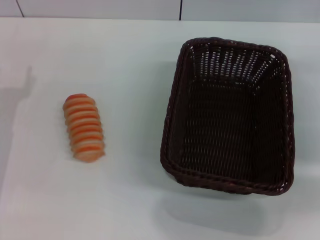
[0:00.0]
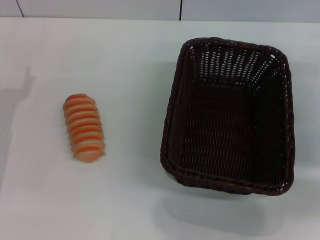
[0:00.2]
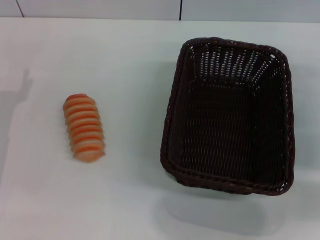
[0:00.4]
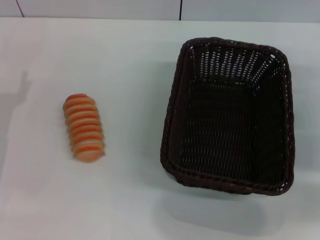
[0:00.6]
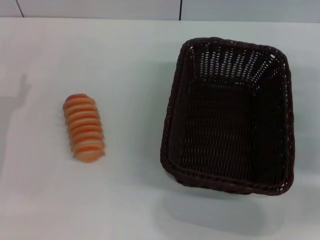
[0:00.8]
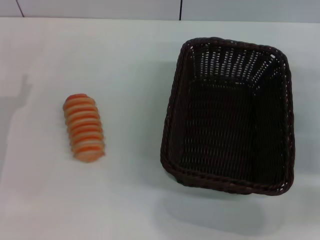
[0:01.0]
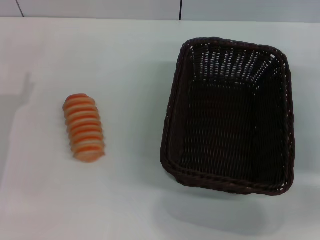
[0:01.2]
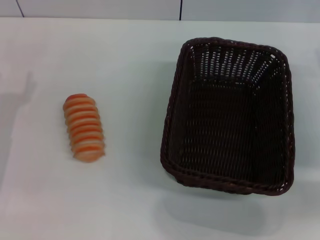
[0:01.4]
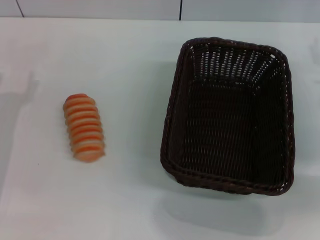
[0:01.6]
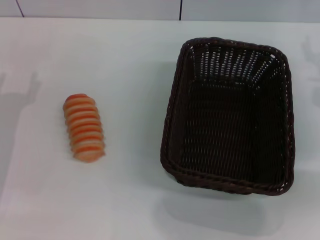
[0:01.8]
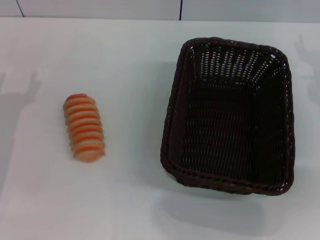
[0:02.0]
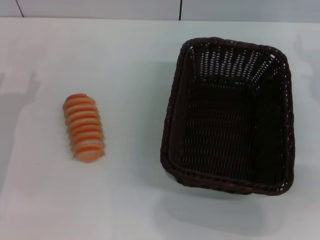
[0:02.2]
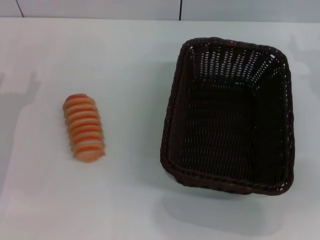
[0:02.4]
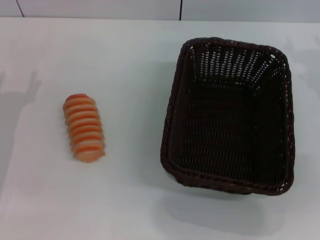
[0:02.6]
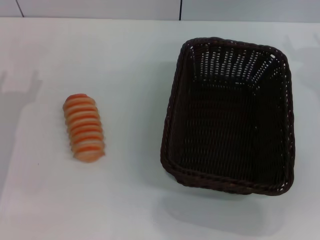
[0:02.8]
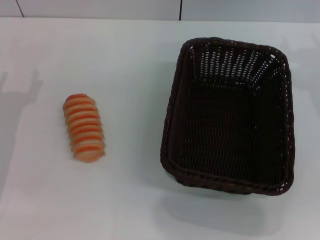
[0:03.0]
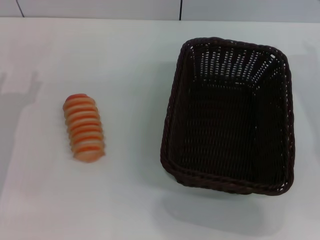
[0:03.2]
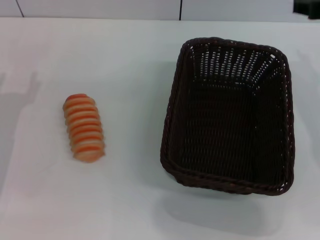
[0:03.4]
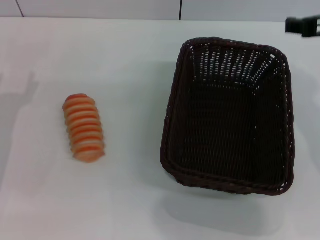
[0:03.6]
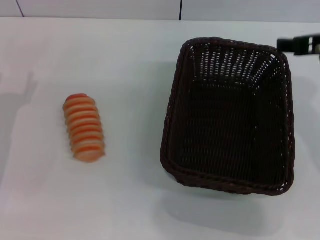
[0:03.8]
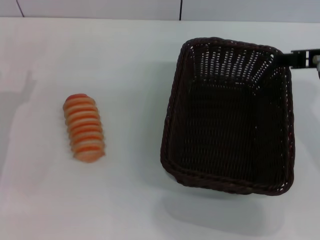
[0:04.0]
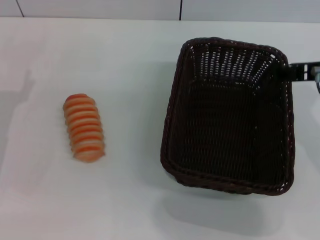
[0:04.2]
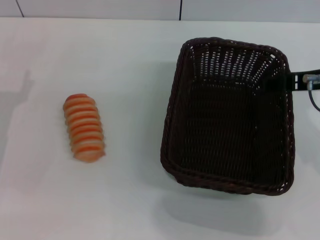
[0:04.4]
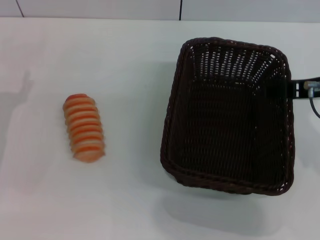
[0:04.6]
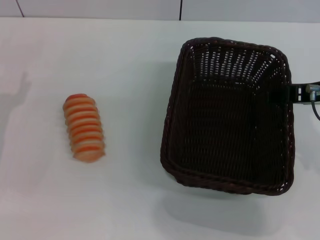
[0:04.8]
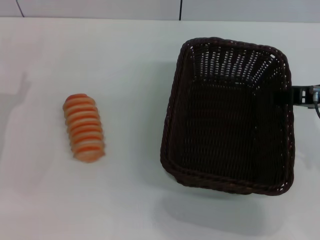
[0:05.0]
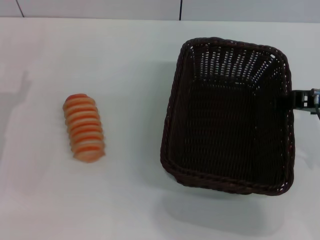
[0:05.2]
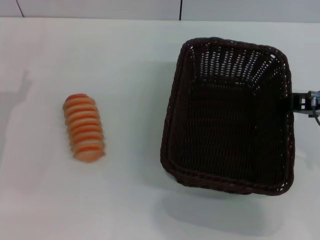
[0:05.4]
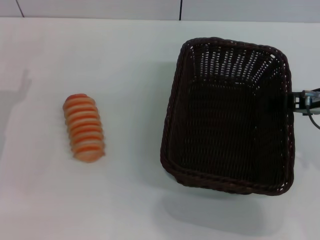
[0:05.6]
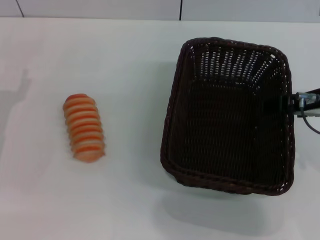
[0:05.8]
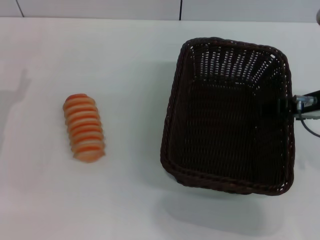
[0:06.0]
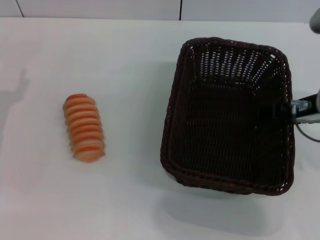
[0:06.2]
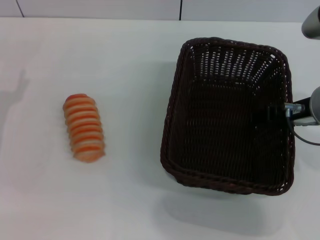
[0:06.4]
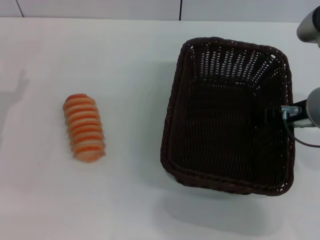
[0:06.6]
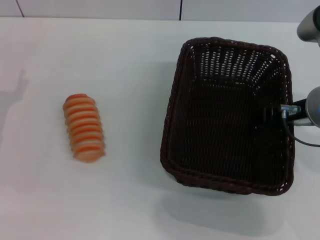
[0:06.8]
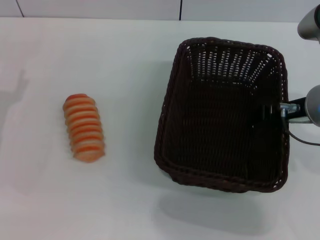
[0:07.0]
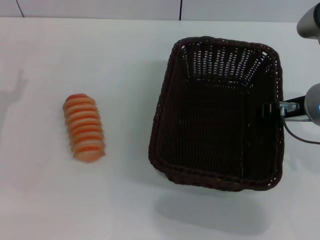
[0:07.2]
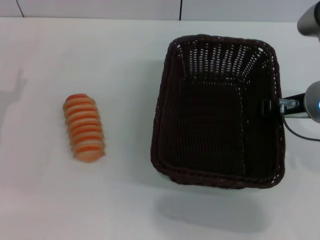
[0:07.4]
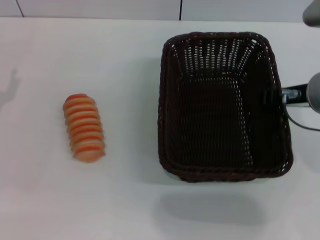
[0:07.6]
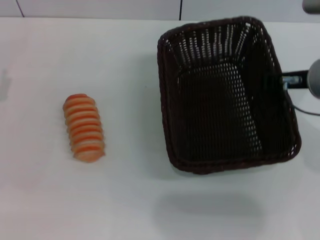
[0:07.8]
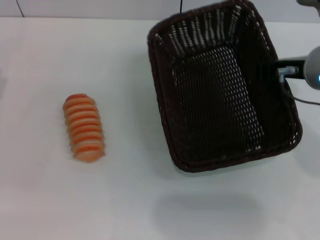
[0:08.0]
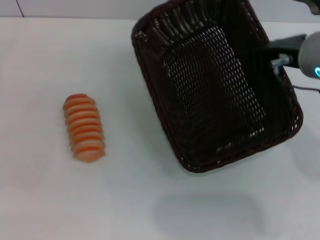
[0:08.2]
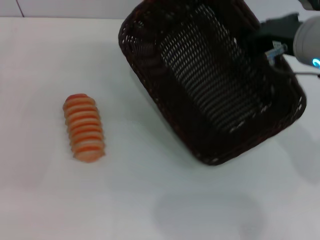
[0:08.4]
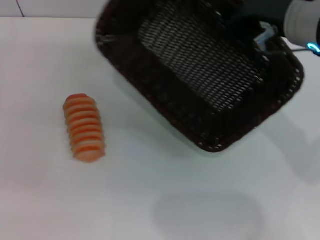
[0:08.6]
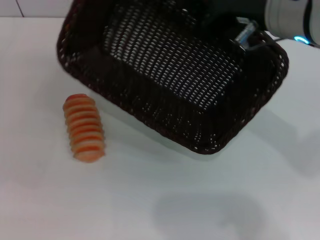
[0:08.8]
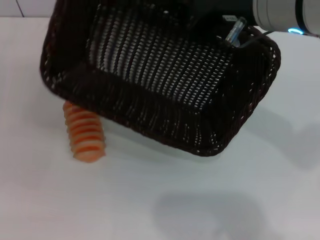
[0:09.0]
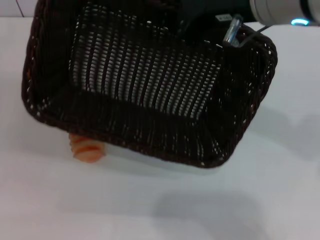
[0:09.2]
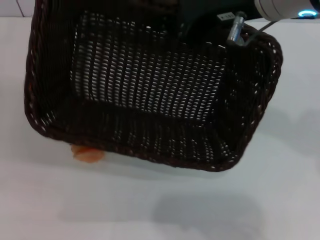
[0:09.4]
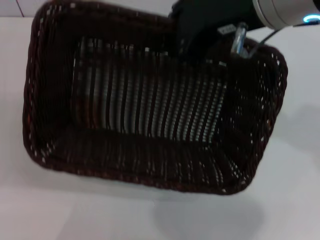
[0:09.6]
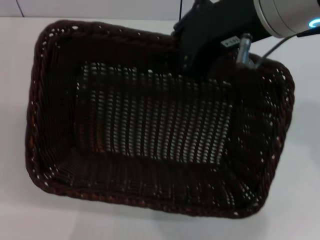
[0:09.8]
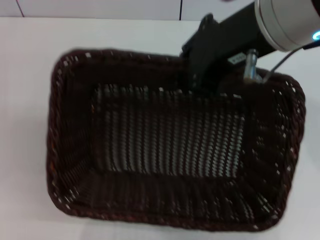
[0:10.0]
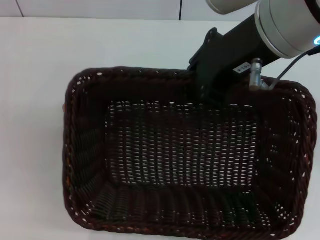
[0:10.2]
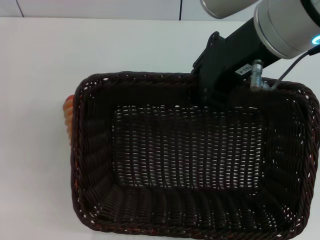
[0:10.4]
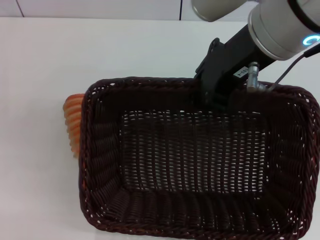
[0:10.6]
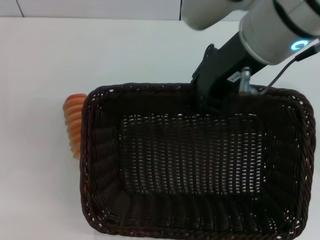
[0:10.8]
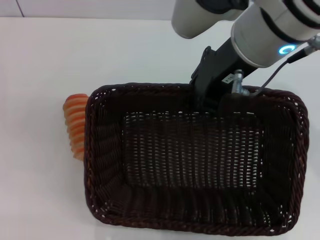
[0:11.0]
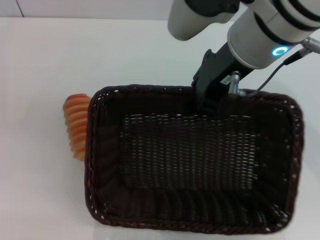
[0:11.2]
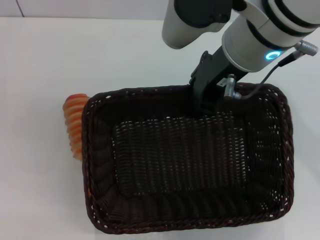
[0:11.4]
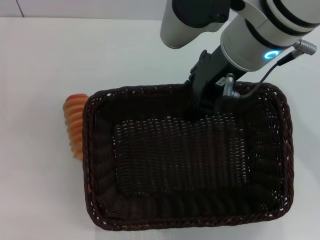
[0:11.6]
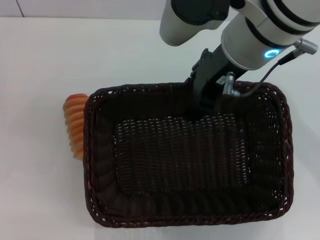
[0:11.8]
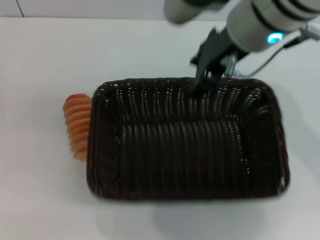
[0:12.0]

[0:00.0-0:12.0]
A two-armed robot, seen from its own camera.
Step, 0:00.0 to 0:07.8: Pick up the dark basket with the right gripper.
0:01.6 to 0:03.0: The right gripper heads upward, covering some 15 cm.
0:03.0 to 0:04.4: The right gripper shifts some 10 cm backward and to the left.
0:04.4 to 0:06.0: The grippers move only a little.
0:06.0 to 0:07.6: The right gripper closes up.
0:07.6 to 0:09.0: The right gripper goes roughly 15 cm upward and to the left.
0:10.4 to 0:12.0: The right gripper shifts by some 5 cm, and opens.

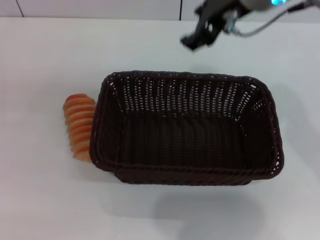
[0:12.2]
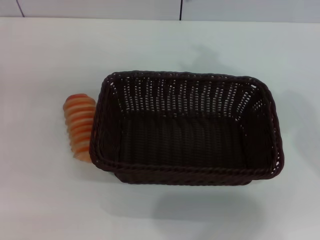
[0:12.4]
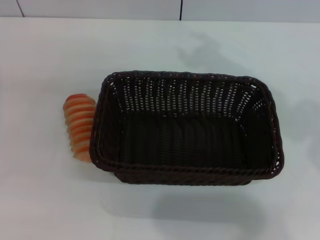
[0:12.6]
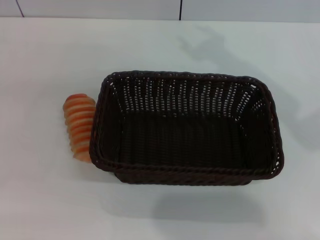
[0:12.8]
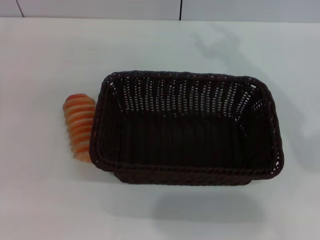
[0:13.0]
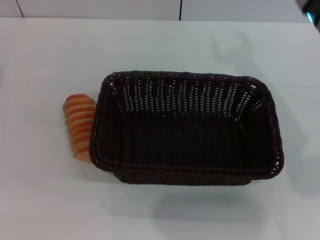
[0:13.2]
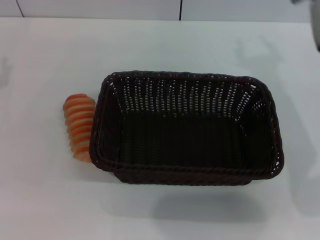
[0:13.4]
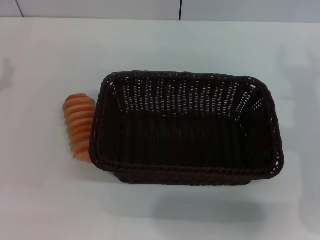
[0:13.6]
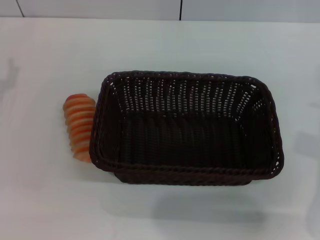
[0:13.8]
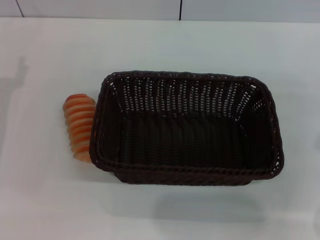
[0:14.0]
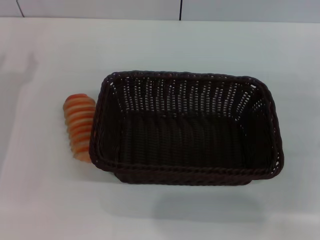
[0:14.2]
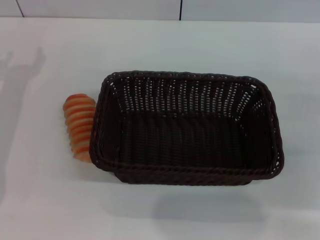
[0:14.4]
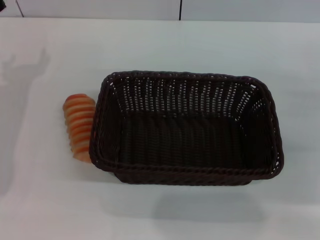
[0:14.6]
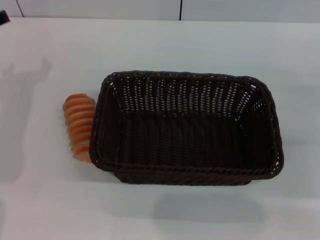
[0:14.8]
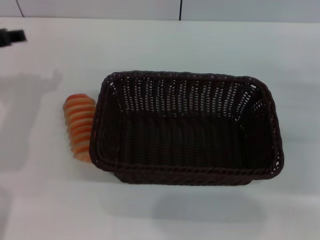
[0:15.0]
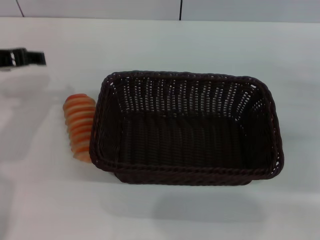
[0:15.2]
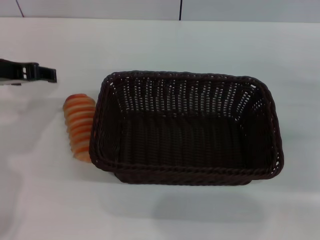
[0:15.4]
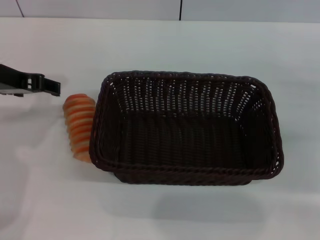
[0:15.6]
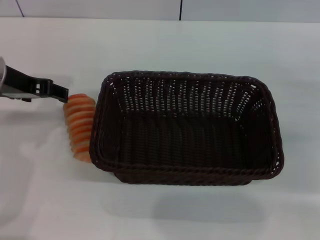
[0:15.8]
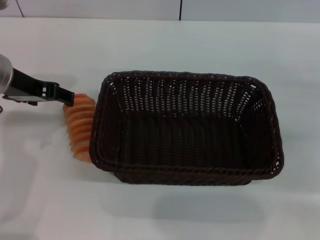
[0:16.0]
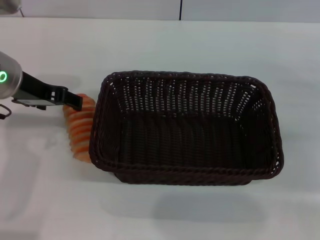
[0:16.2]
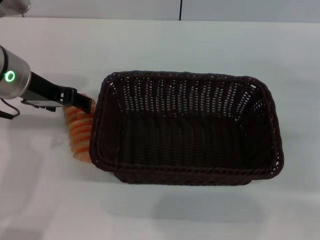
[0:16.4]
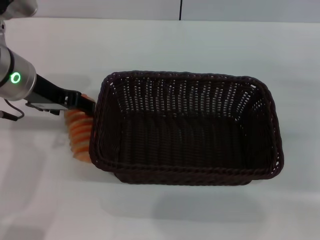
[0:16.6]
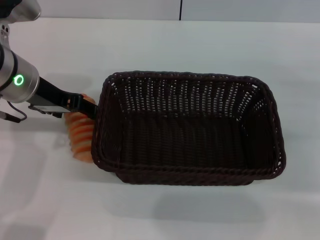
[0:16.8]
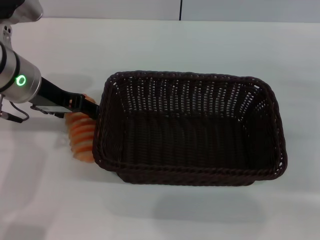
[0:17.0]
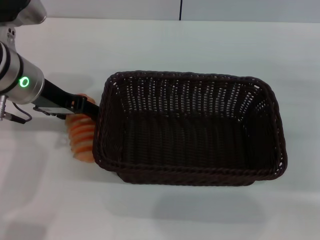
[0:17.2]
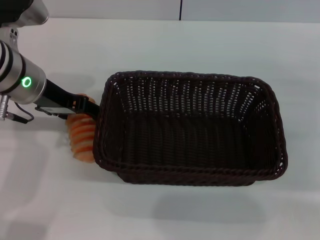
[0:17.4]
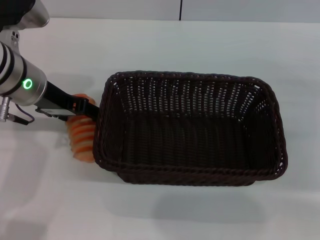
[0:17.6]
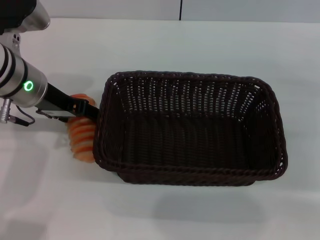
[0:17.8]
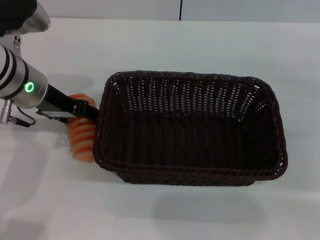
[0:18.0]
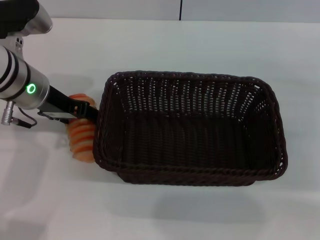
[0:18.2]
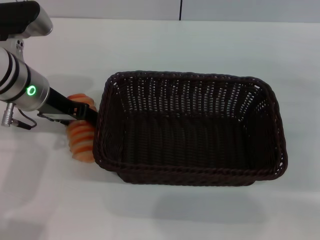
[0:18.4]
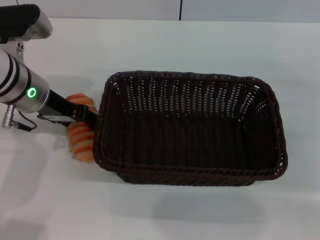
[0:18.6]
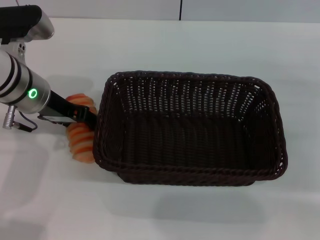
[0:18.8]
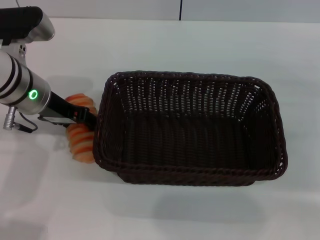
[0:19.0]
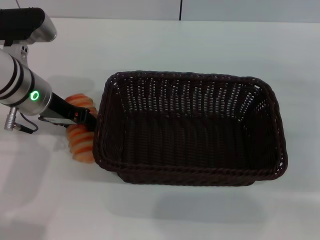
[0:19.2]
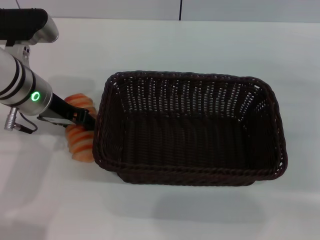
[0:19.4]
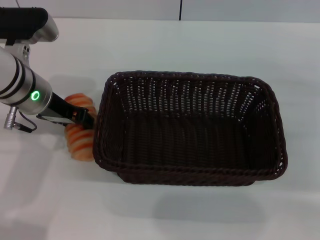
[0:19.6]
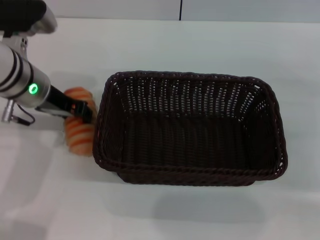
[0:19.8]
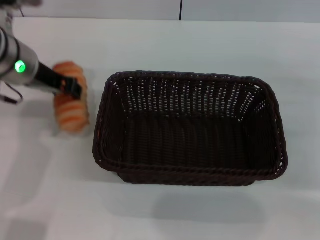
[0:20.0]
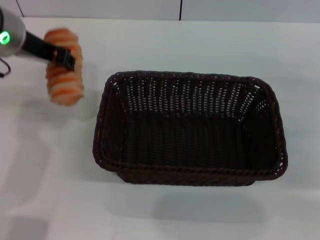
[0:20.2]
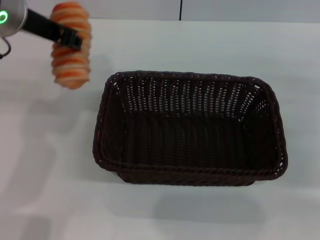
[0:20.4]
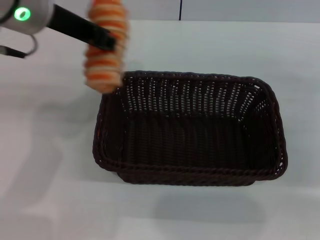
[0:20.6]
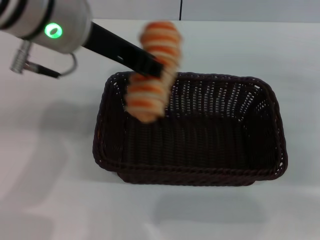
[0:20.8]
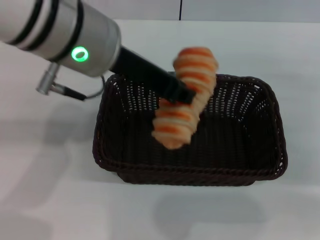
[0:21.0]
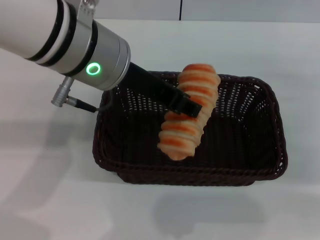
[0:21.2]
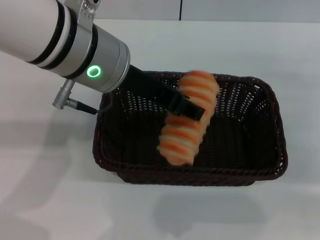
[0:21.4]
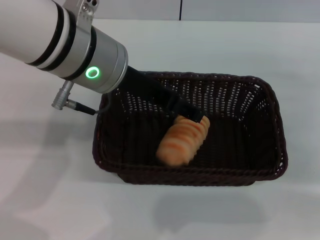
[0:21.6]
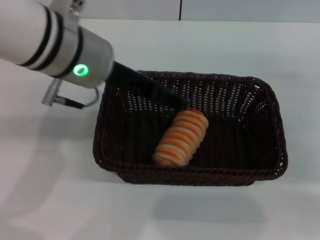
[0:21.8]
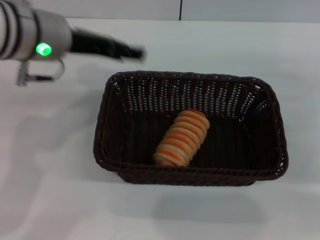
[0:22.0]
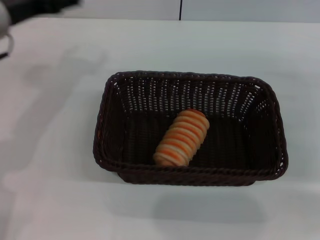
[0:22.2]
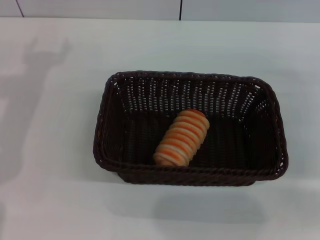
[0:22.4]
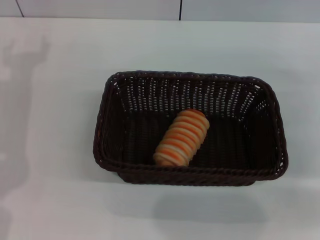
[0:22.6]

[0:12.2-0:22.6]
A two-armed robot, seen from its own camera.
Step, 0:12.2 to 0:20.2: Pick up the long bread with the left gripper.
Step, 0:20.4 to 0:21.6: Place the long bread into the dark basket with the left gripper.
0:12.2 to 0:13.6: The right gripper goes approximately 20 cm downward, to the right and backward.
0:13.6 to 0:15.2: The right gripper moves to the right and downward, some 15 cm, while the left gripper shifts approximately 15 cm upward and to the right.
0:15.2 to 0:16.6: The left gripper heads to the right, covering approximately 5 cm.
0:16.6 to 0:18.2: There are only small adjustments of the grippers.
0:18.2 to 0:19.6: The left gripper closes up.
0:19.6 to 0:21.2: The left gripper shifts about 15 cm upward and to the right, and closes.
0:21.2 to 0:22.6: The left gripper heads to the left and downward, covering about 20 cm, and opens its fingers.
